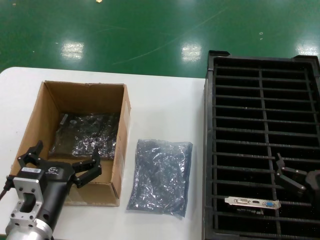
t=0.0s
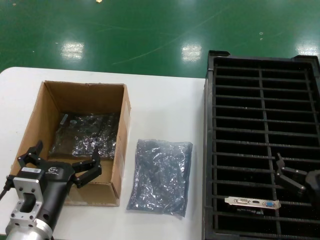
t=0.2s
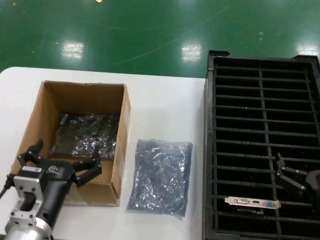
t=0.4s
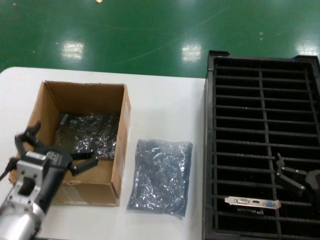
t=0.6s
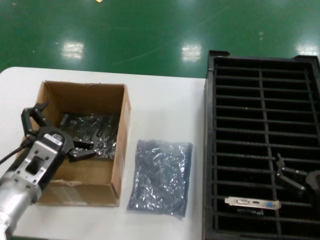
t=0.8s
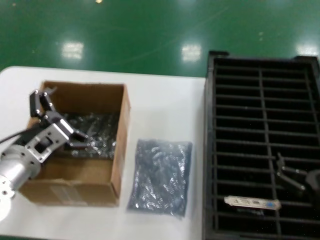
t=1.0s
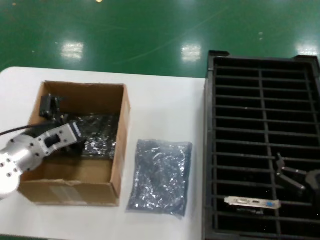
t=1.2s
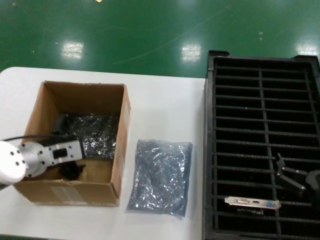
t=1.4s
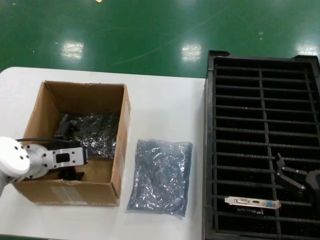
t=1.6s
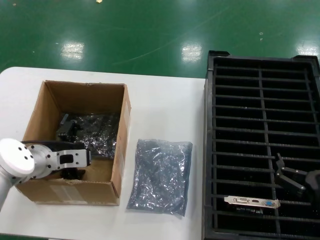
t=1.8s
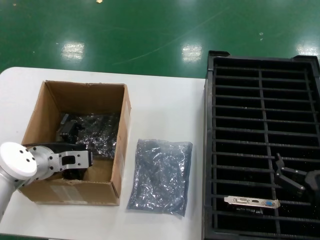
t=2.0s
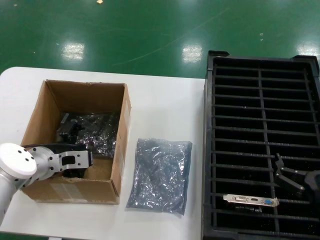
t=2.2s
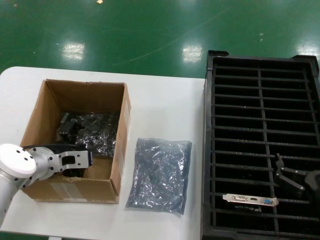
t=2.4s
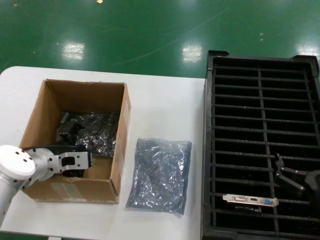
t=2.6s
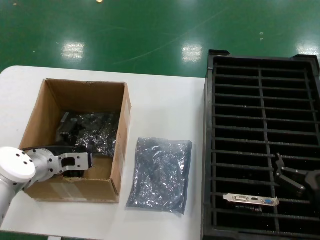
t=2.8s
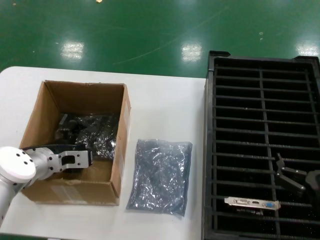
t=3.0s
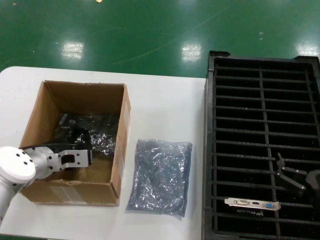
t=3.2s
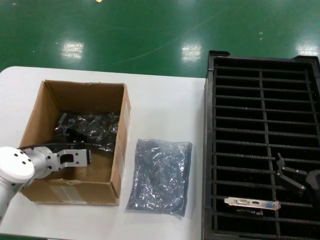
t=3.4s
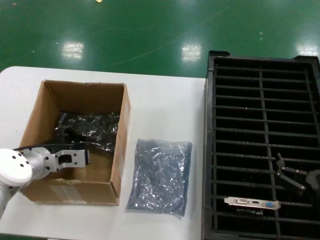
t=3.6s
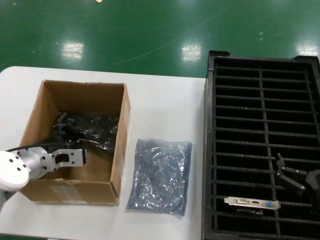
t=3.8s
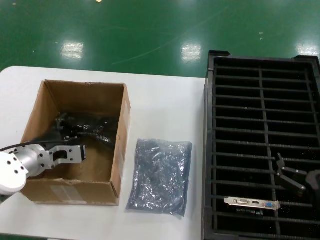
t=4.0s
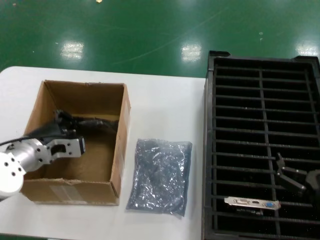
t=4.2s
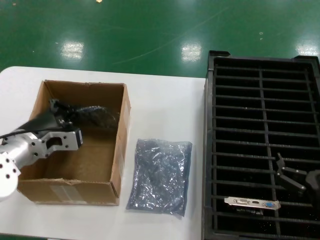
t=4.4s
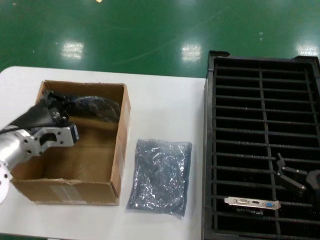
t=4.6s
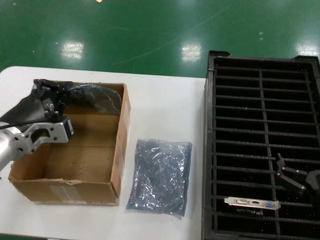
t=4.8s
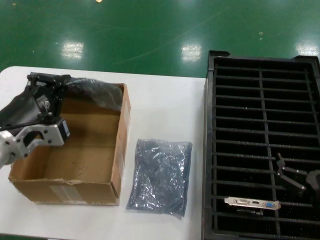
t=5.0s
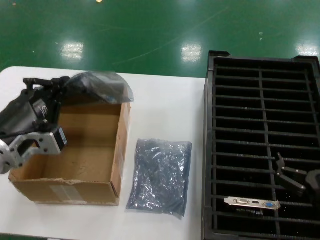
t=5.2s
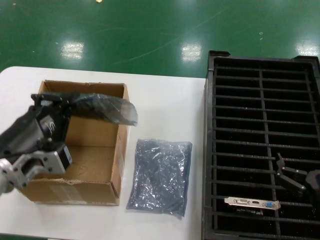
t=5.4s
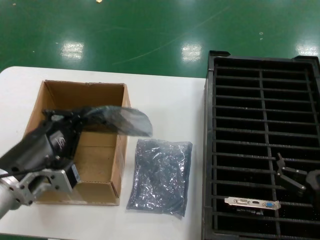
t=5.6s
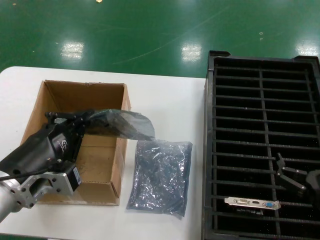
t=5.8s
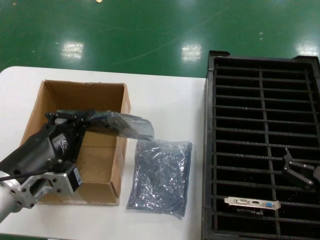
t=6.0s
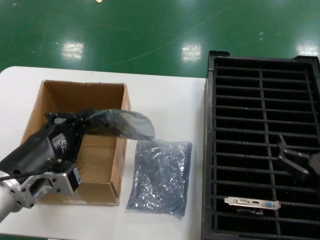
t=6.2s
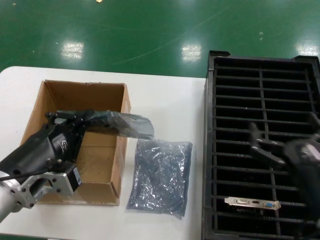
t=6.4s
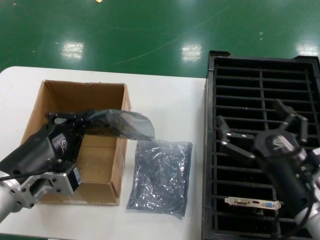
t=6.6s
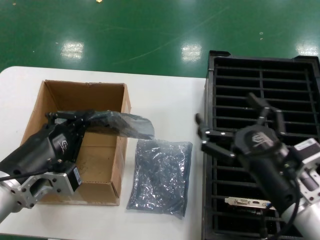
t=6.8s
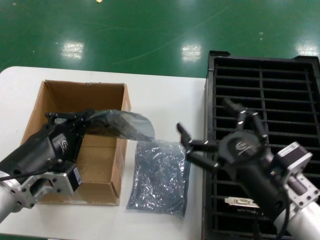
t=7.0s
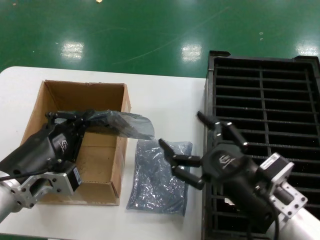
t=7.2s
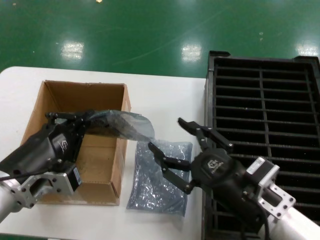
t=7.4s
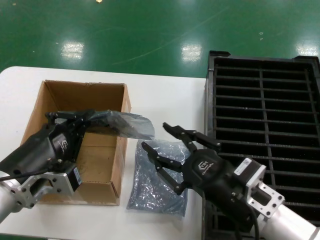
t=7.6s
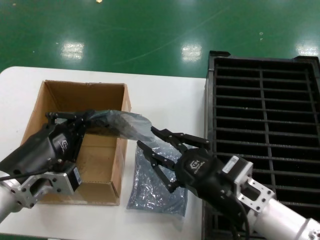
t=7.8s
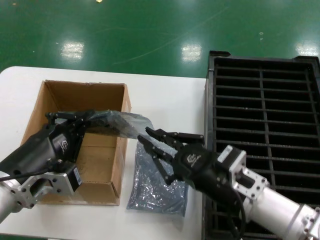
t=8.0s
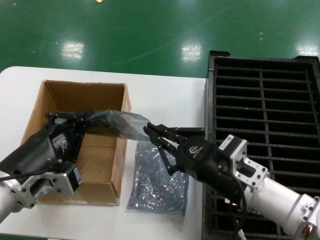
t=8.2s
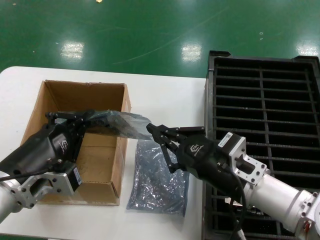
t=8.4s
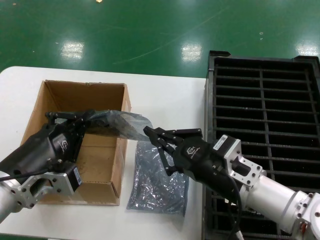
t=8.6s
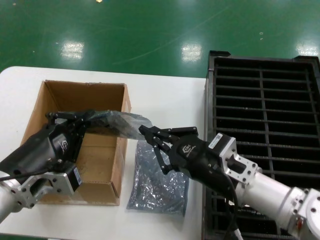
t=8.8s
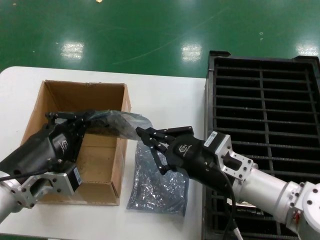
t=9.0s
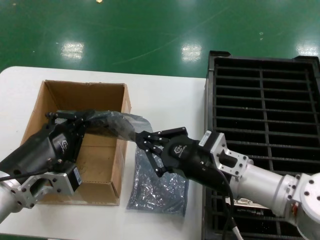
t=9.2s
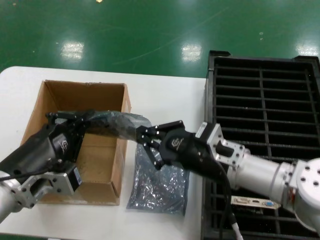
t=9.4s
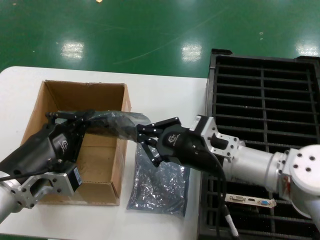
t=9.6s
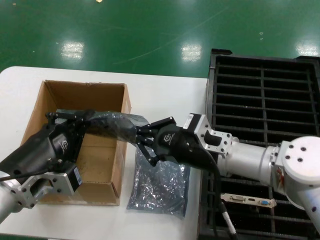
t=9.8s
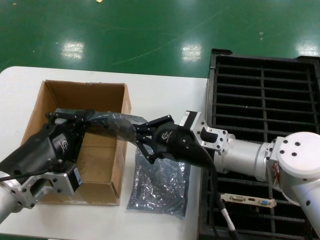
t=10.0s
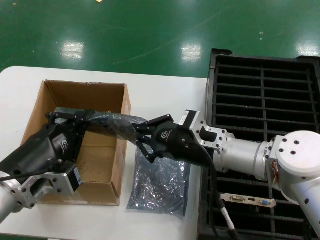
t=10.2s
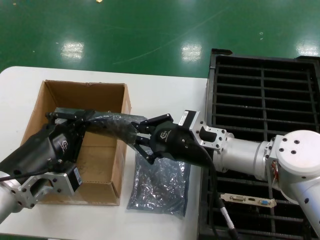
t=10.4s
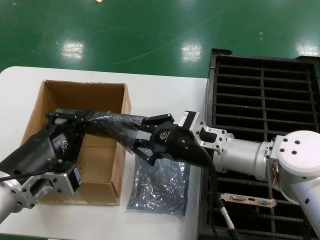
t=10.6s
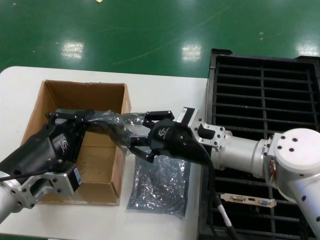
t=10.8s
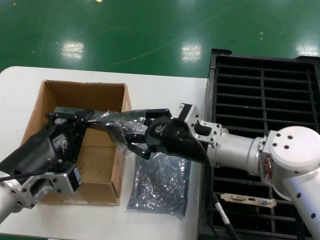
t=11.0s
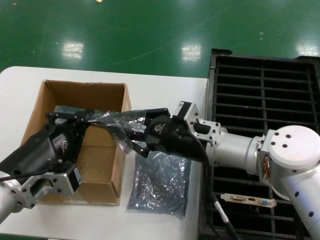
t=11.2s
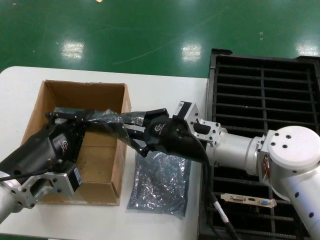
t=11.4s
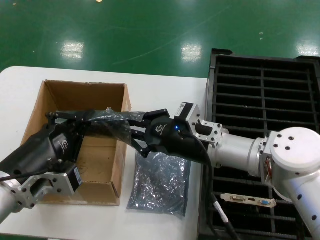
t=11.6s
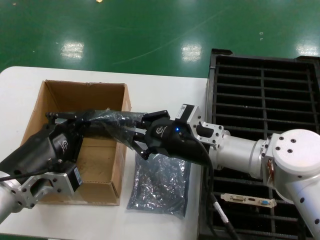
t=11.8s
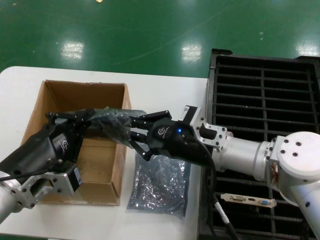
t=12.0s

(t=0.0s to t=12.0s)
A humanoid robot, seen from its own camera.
Task of the whole recording: take out graphics card from box remove packaging put into black container.
Step, t=0.0s - t=3.4s: Grasp the bag.
Step, t=3.6s - t=5.8s: Lift the bag.
t=0.0s - t=1.6s: The left hand travels forward and to the left by about 20 cm.
t=1.6s - t=3.0s: The hands stay close to where they were, moving slightly.
t=3.0s - t=4.4s: The left hand heads upward, covering some 5 cm.
t=4.4s - t=6.0s: The left hand is displaced backward by about 15 cm.
t=6.0s - t=7.6s: The right hand goes some 15 cm to the left and upward.
t=7.6s - t=9.0s: The right hand heads forward, covering about 5 cm.
t=9.0s - t=10.4s: The right hand travels forward by approximately 5 cm.
t=10.4s - t=12.0s: The hands move only a little.

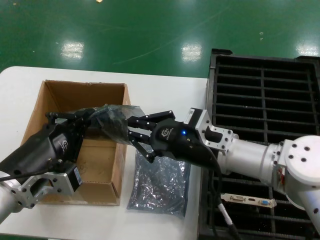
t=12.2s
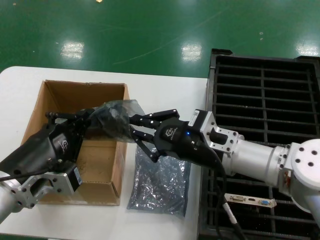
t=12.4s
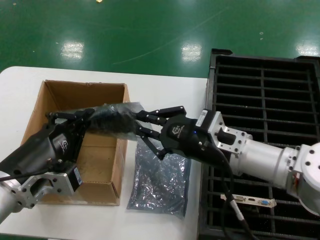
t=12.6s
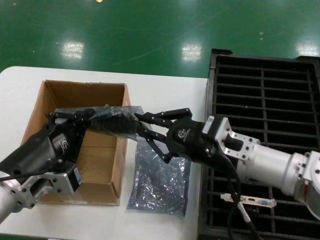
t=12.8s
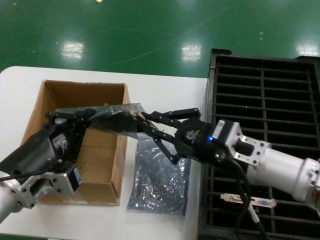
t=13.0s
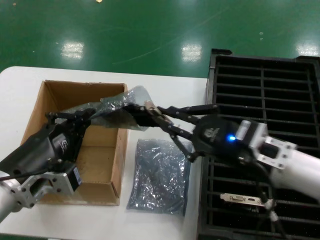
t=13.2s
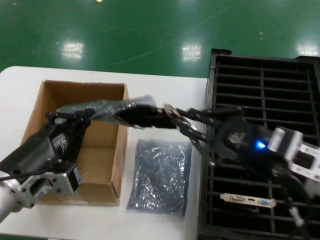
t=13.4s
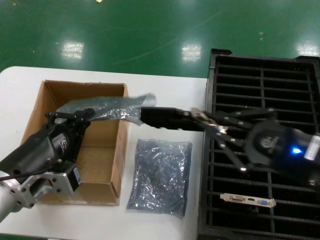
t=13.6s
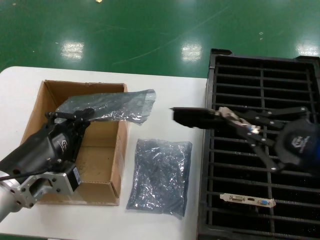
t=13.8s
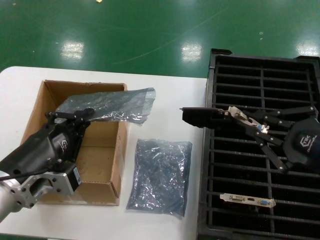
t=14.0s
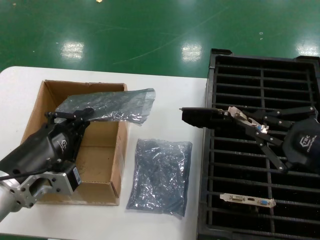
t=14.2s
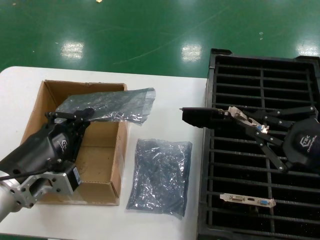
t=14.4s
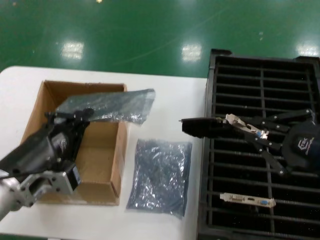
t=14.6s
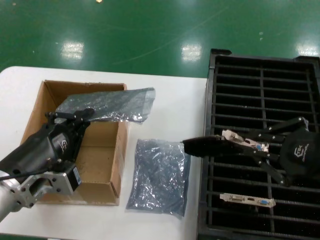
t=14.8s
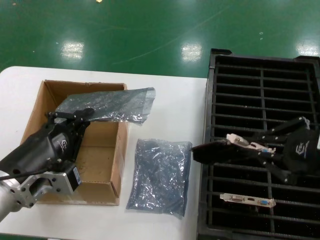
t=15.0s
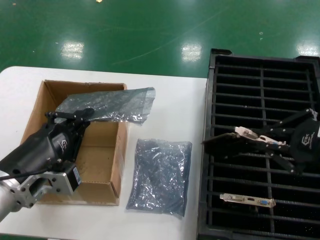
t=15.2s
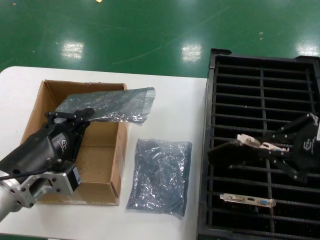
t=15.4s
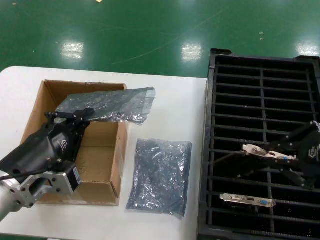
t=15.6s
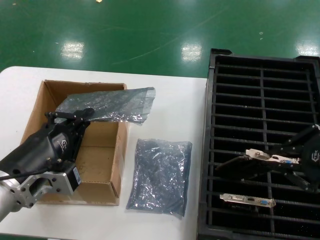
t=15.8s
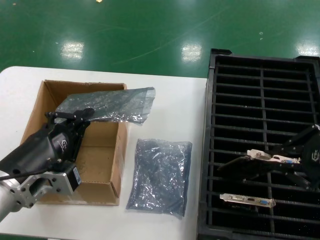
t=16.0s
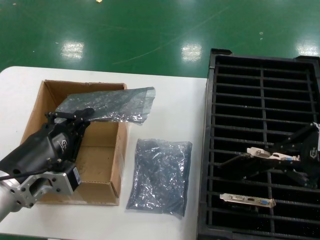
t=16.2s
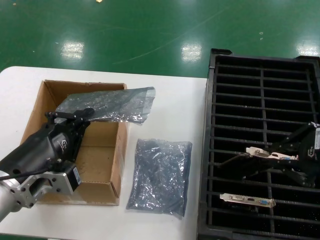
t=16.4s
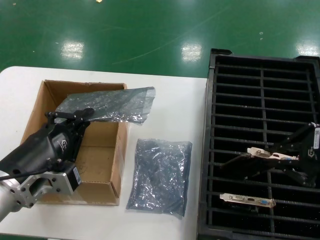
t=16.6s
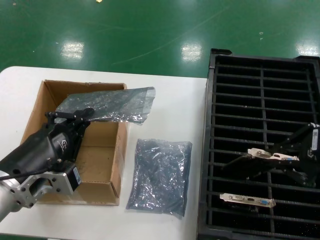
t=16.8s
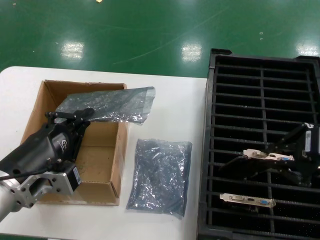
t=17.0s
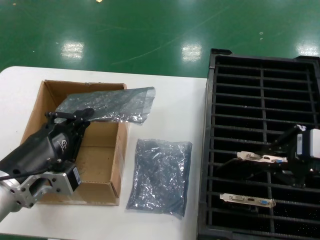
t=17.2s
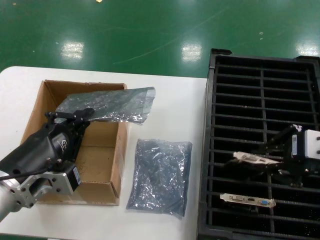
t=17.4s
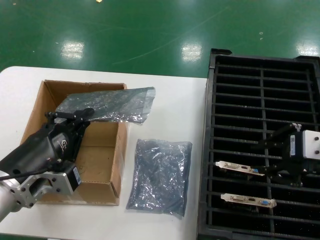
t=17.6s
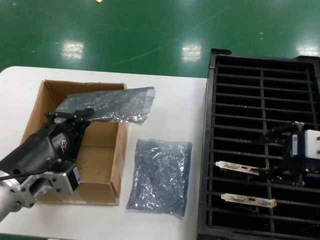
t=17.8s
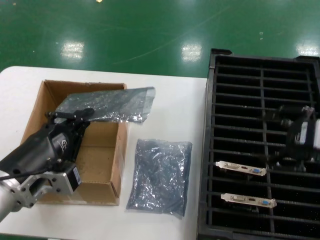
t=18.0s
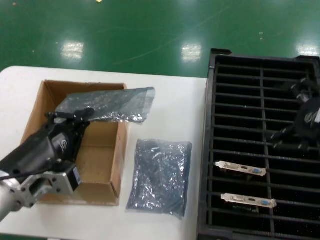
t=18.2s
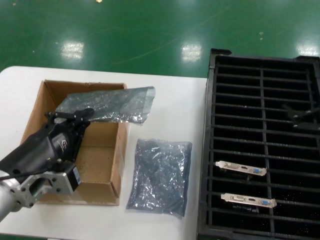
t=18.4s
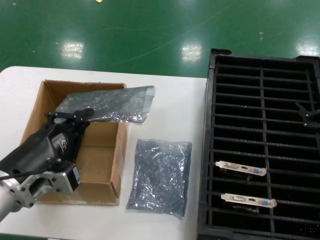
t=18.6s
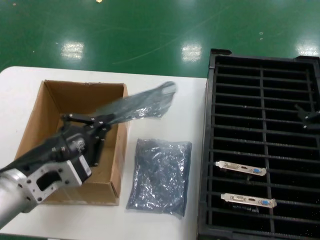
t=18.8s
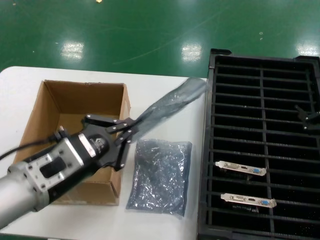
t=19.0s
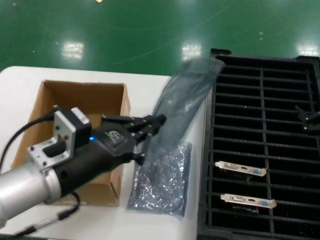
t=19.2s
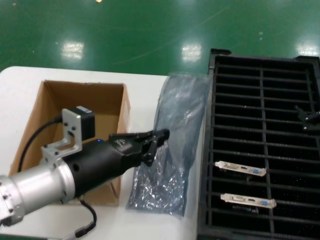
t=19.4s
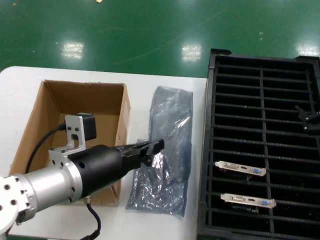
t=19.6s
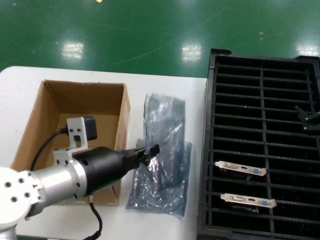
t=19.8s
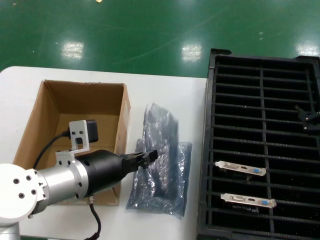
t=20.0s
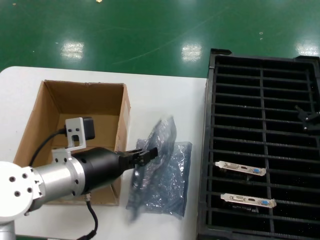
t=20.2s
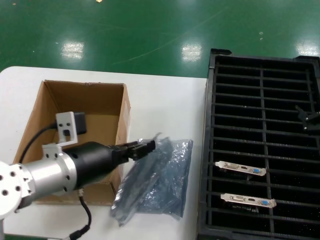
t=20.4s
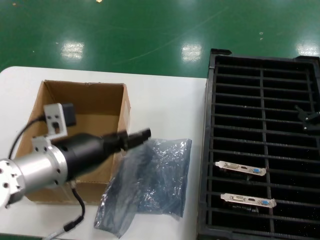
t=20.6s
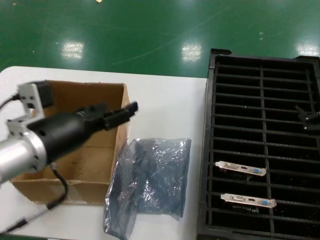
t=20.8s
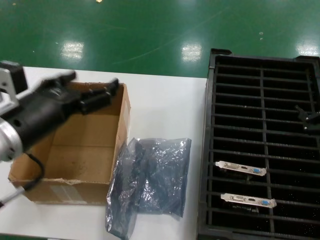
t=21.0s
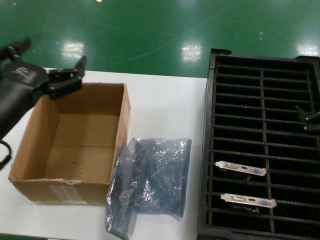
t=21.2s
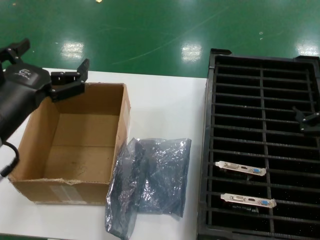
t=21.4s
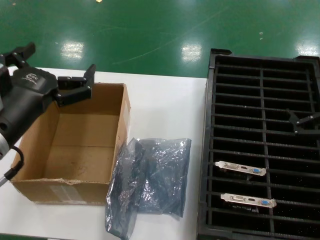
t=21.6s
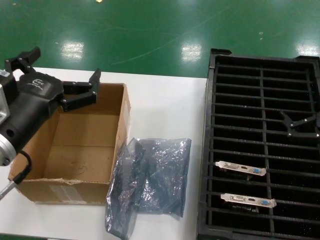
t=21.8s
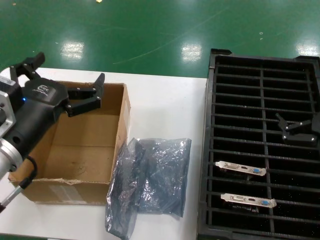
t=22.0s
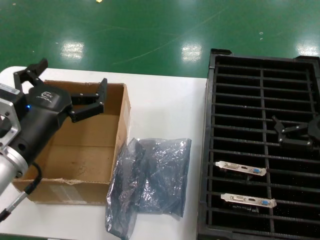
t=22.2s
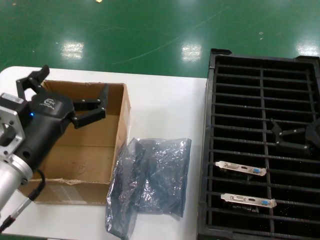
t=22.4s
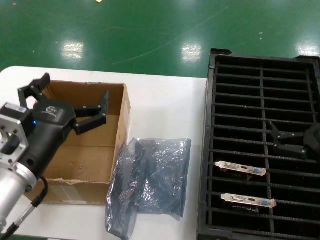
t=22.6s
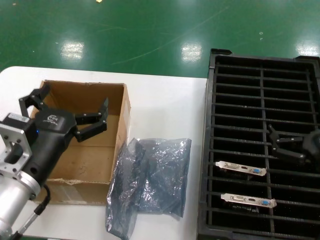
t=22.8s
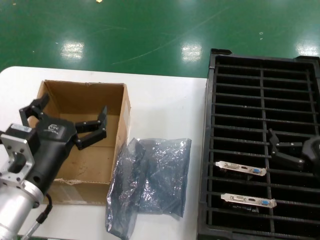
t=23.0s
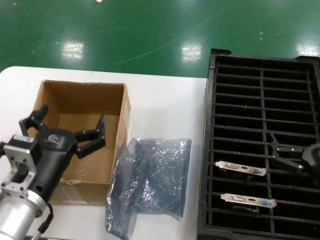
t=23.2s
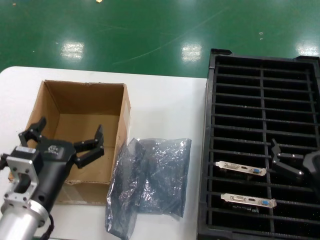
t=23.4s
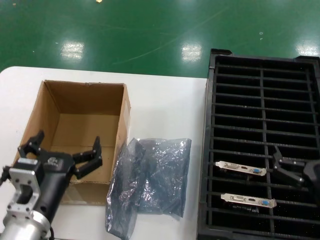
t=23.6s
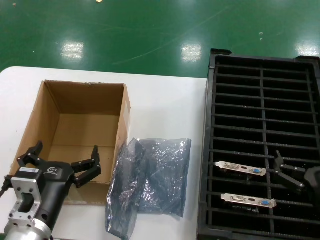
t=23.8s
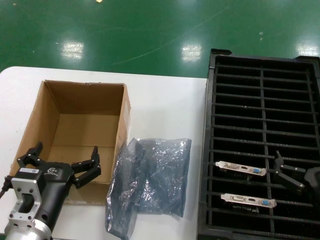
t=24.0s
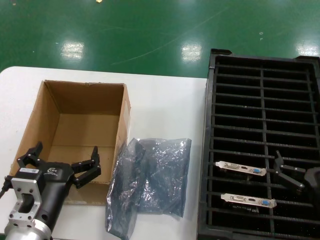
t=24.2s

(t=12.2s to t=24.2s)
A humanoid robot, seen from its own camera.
Task of the whole recording: take out graphics card from box remove packaging put into black container.
Step, t=13.8s - t=18.0s: Place the hard disk in the hard disk enclosure.
Step, t=18.2s - t=21.8s: Place the down the bag.
t=12.2s - t=13.8s: The right hand travels to the right and backward by about 20 cm.
t=13.8s - t=15.2s: The right hand shifts about 5 cm upward.
t=15.2s - t=18.2s: The hands make only small movements.
t=18.2s - t=19.8s: The left hand heads forward and to the right, covering roughly 10 cm; the right hand ends up about 5 cm from where it was.
t=19.8s - t=21.2s: The left hand goes approximately 10 cm upward and to the left.
t=21.2s - t=22.6s: Both hands move downward, roughly 10 cm.
t=22.6s - t=24.2s: Both hands move downward, some 10 cm.
